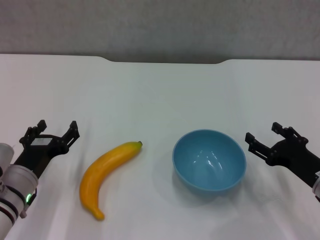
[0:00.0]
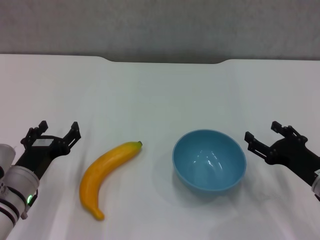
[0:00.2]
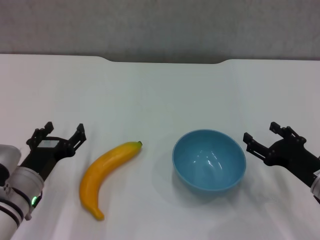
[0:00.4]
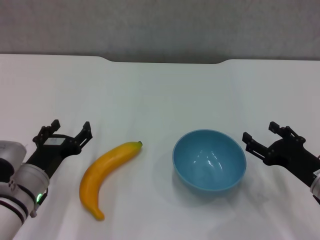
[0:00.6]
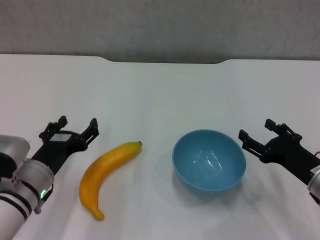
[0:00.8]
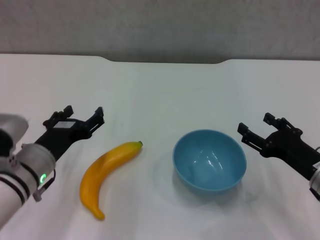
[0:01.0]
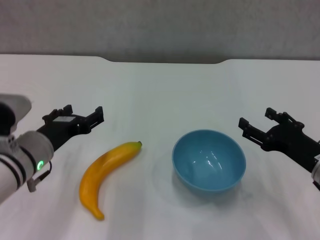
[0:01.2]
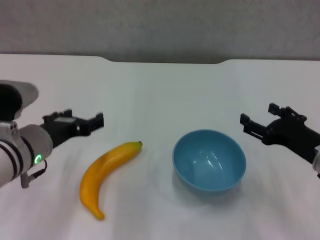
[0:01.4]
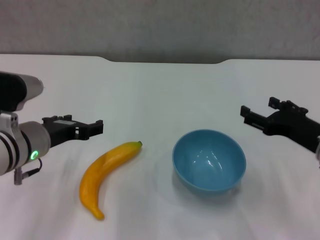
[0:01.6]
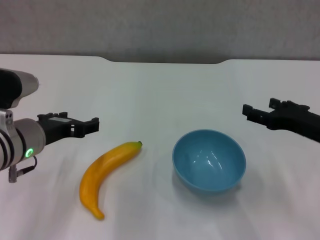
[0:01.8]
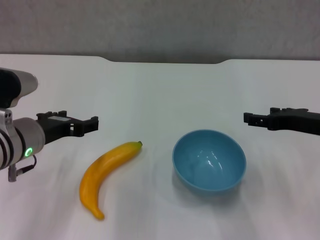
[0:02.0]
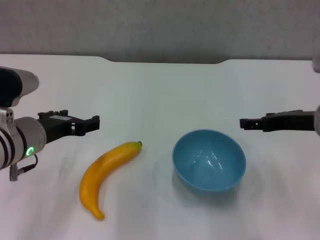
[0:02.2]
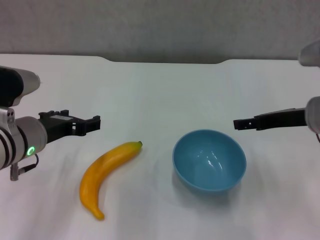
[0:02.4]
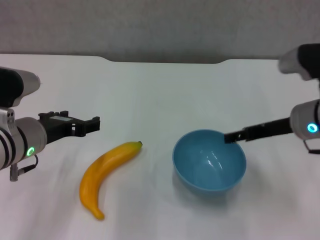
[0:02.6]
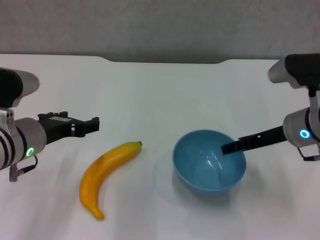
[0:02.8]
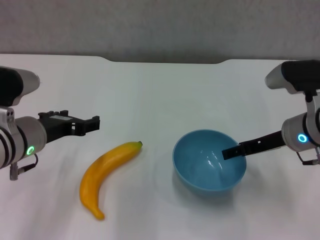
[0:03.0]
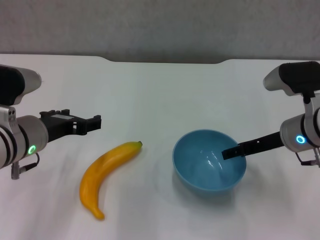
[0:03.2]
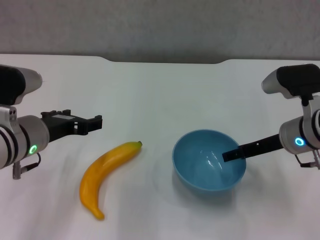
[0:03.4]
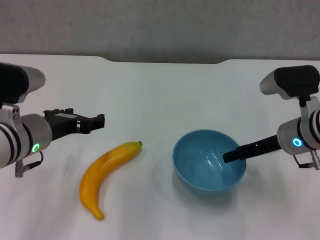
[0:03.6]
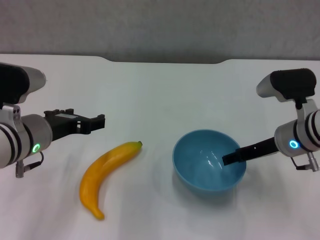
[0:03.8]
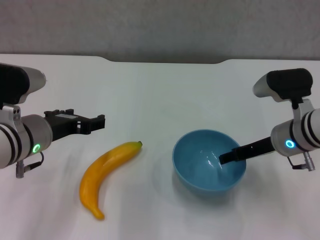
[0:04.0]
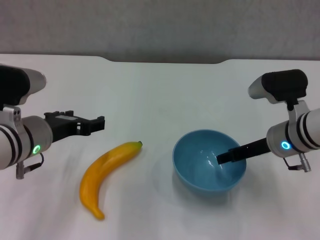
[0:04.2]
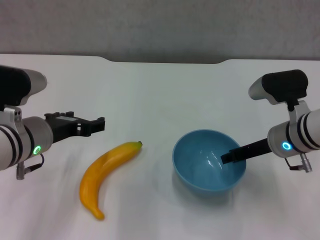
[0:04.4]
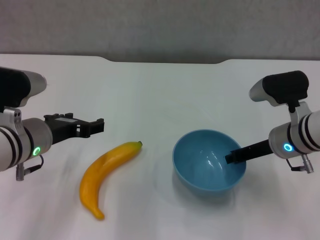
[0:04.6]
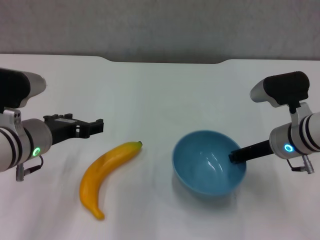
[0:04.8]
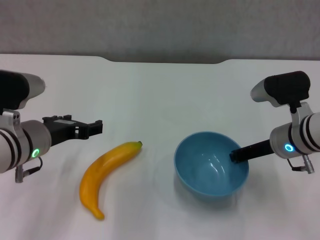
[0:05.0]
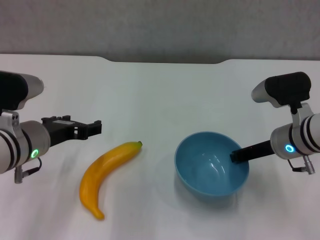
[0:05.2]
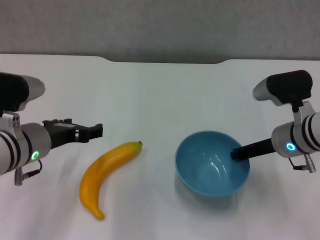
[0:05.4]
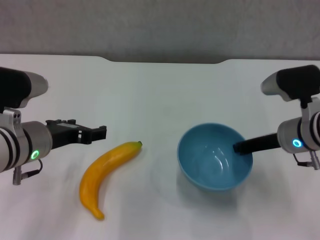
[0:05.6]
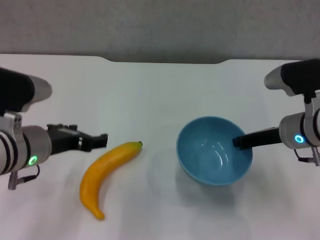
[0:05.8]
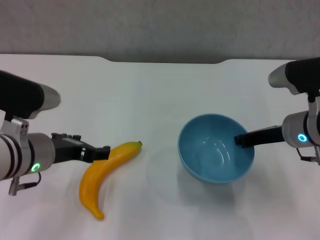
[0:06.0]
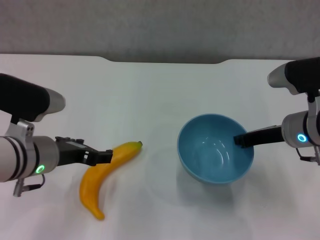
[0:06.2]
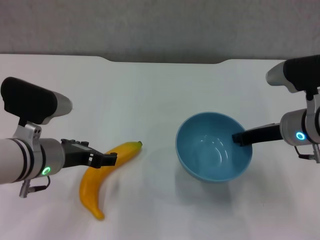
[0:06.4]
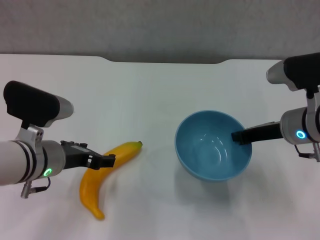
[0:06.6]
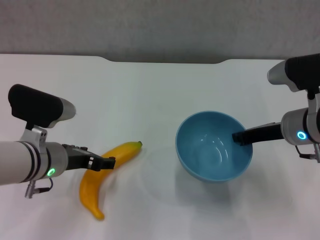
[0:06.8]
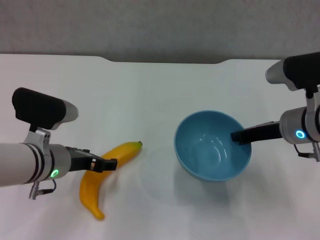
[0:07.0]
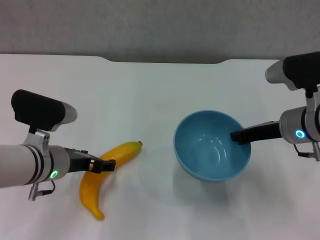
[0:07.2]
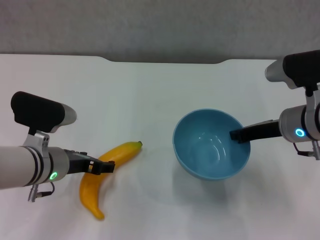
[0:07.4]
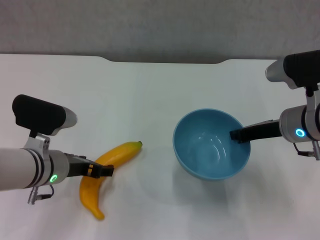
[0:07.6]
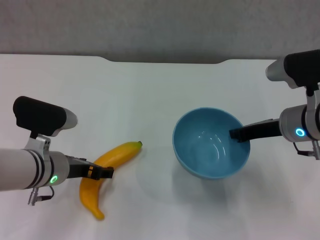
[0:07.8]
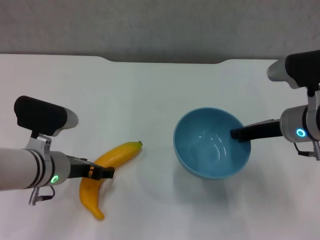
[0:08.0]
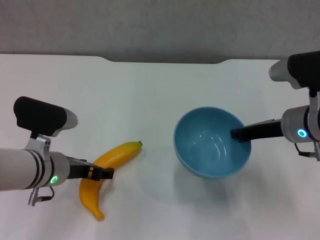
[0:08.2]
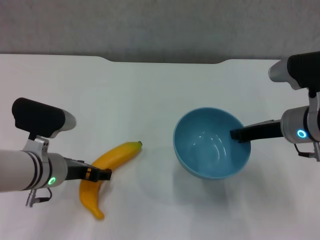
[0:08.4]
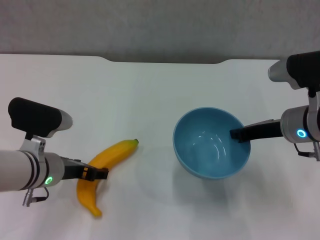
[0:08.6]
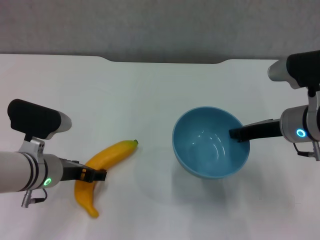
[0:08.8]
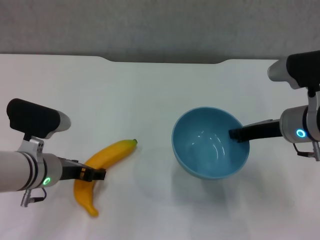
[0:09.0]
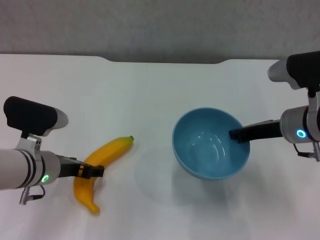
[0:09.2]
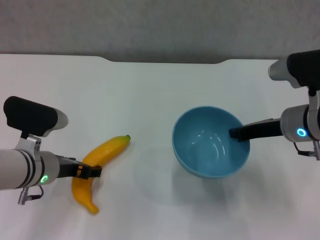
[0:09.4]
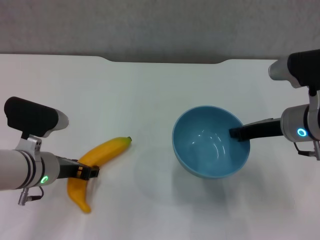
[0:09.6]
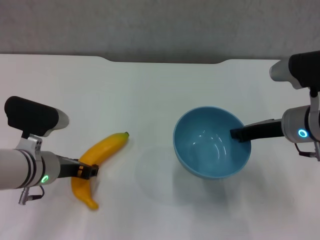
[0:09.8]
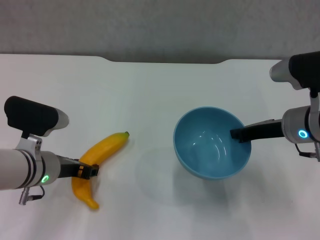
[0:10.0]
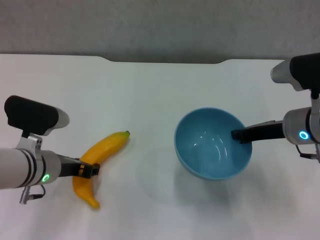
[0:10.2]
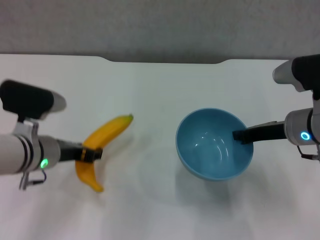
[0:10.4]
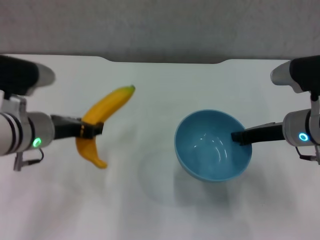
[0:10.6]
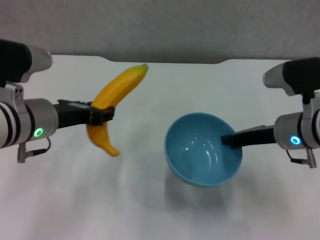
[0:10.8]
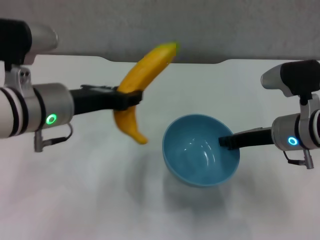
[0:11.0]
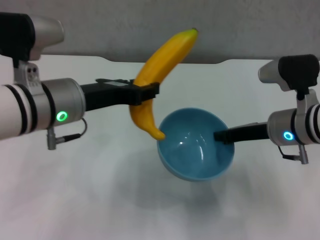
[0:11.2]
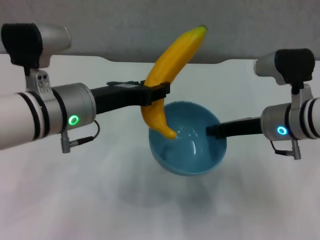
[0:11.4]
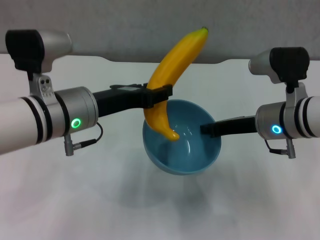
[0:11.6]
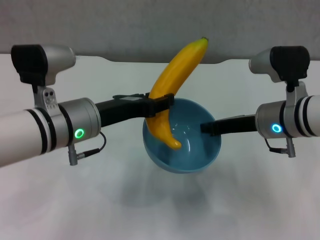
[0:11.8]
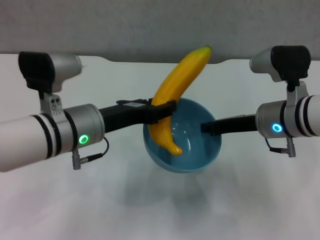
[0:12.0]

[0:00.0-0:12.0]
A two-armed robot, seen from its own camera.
Step, 0:00.0 to 0:05.0: Grasp the blue bowl with right gripper.
Step, 0:05.2 to 0:06.2: Lift the blue bowl with right gripper.
Step, 0:06.4 to 0:08.8: Grasp the banana with left gripper.
0:00.0 to 0:01.6: The grippers both shift upward by approximately 10 cm.
0:01.6 to 0:03.0: The right gripper goes about 10 cm forward.
0:03.0 to 0:04.4: The right gripper closes.
0:04.4 to 0:06.0: The right gripper closes up.
0:06.0 to 0:07.6: The left gripper travels downward by about 5 cm.
0:07.6 to 0:09.0: Both grippers stay about where they are.
0:09.0 to 0:10.4: The left gripper closes its fingers.
0:10.4 to 0:12.0: The left gripper travels to the right by roughly 5 cm.

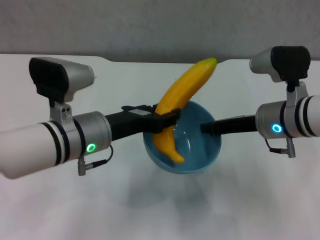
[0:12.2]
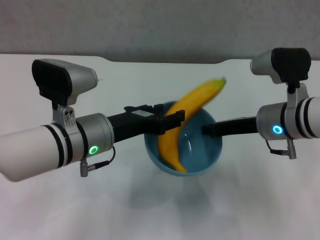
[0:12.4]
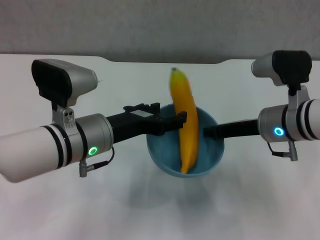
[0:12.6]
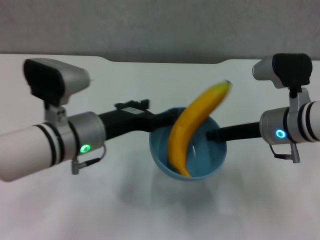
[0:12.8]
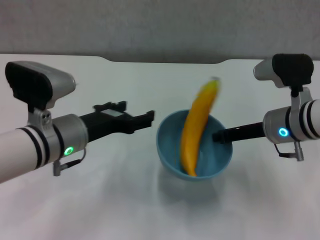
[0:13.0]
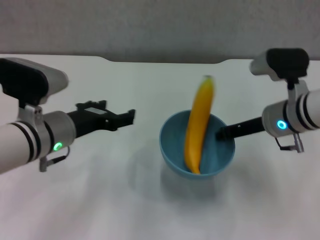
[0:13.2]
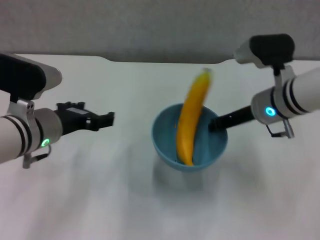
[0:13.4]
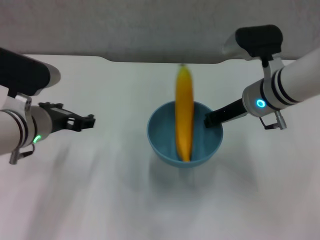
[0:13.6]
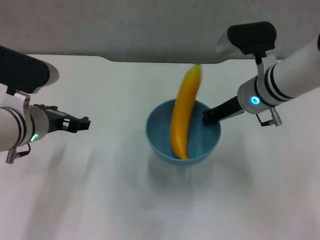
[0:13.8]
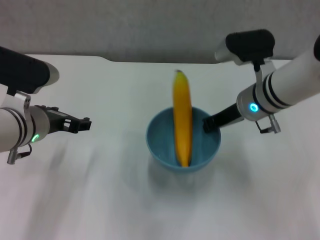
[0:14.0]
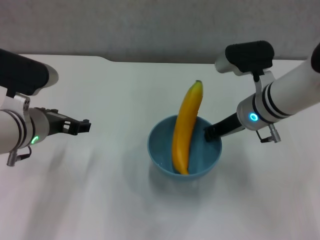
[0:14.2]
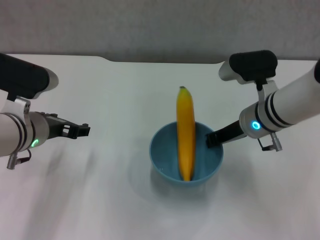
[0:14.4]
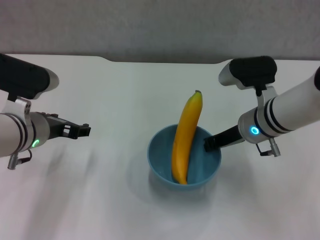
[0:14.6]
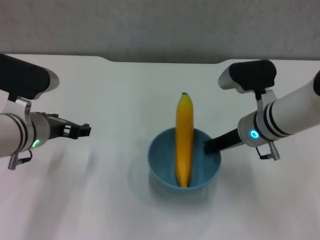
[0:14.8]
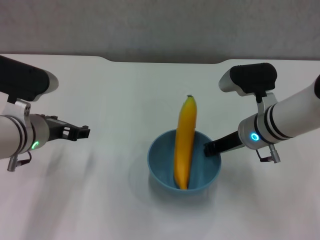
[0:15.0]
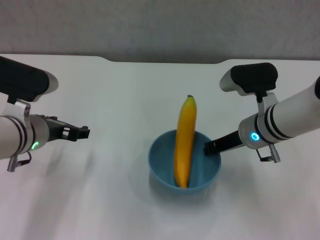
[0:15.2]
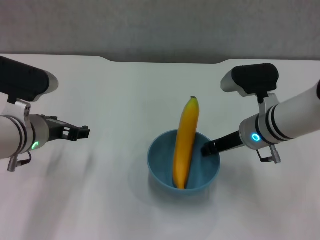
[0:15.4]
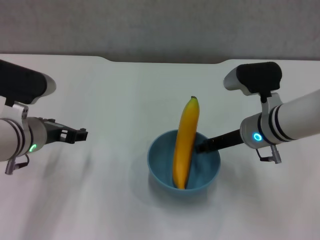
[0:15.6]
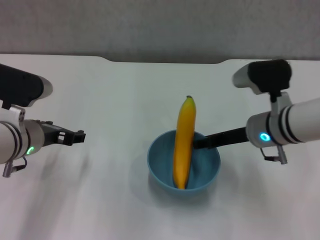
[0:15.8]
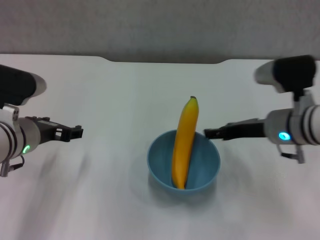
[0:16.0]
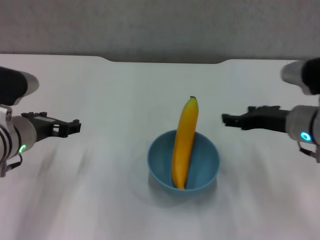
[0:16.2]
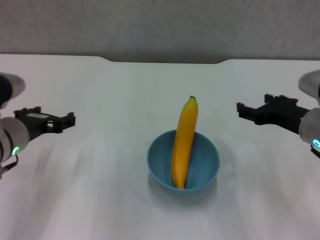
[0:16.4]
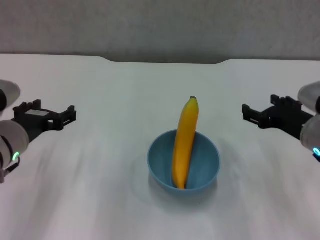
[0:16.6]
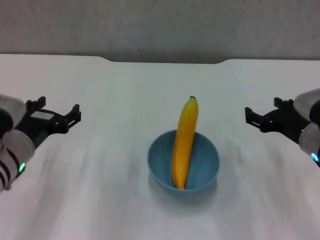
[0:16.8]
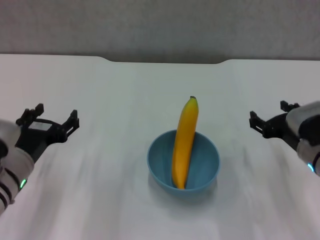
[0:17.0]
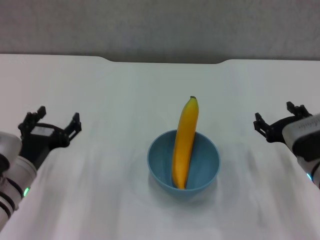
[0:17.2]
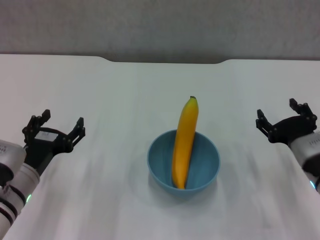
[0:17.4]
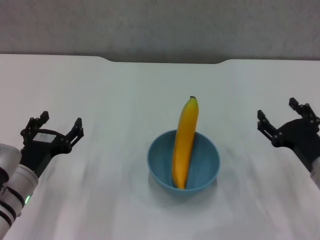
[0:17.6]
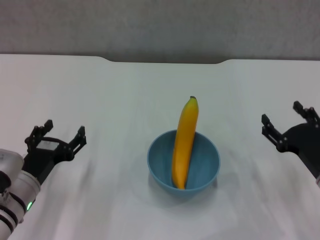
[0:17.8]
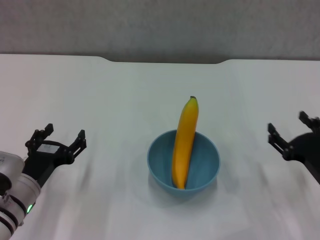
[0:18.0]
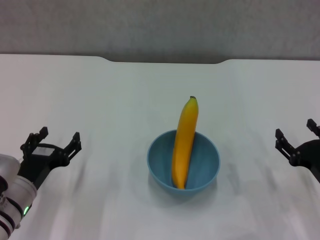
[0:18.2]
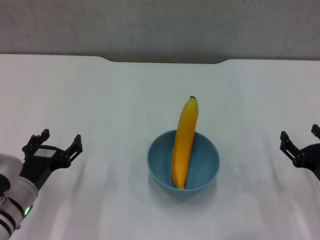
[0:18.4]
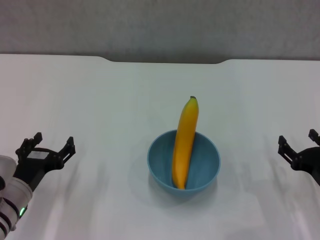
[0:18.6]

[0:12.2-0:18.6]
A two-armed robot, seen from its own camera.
Step, 0:12.8 to 0:15.8: Place the bowl on the table with right gripper.
0:12.2 to 0:13.8: The left gripper travels to the left by some 5 cm, and opens up; the right gripper heads forward, covering some 5 cm.
0:13.8 to 0:15.4: The right gripper is displaced downward by roughly 5 cm.
0:15.4 to 0:17.0: The left gripper shifts roughly 10 cm backward and downward, while the right gripper is displaced backward and to the right by some 10 cm, and opens up.
0:17.0 to 0:18.6: The right gripper moves downward, backward and to the right, about 10 cm; the left gripper is displaced downward by about 5 cm.

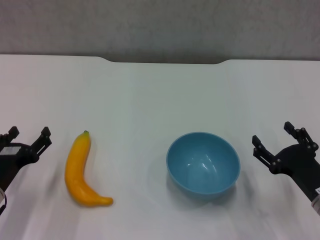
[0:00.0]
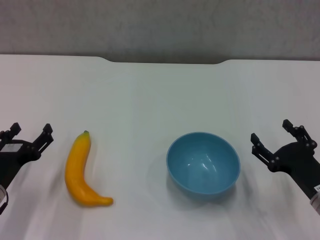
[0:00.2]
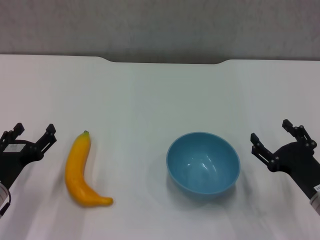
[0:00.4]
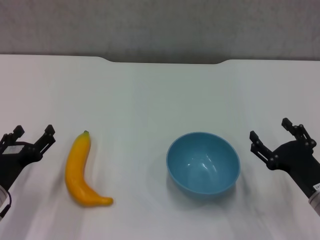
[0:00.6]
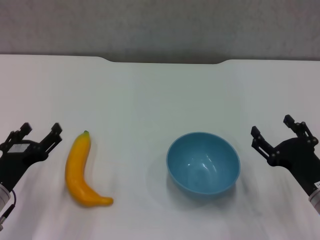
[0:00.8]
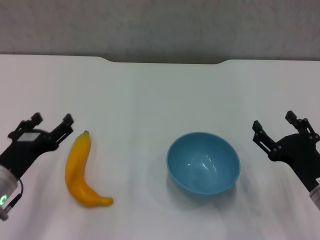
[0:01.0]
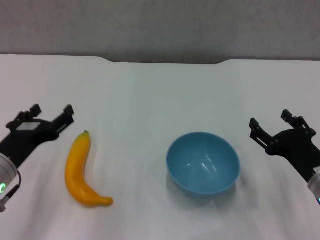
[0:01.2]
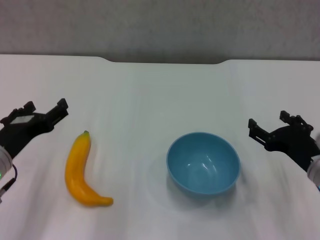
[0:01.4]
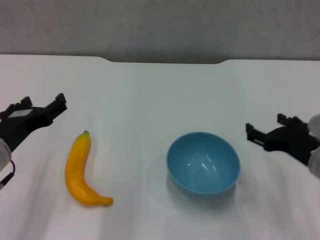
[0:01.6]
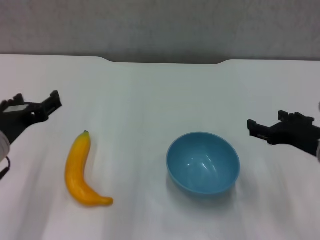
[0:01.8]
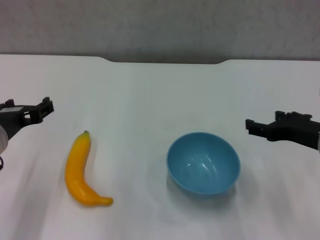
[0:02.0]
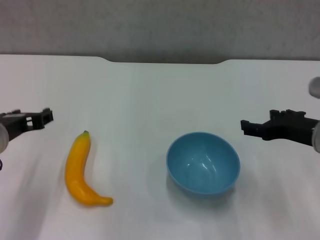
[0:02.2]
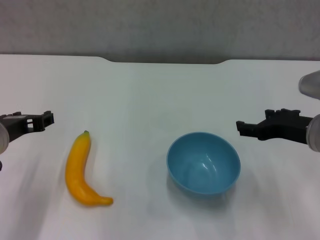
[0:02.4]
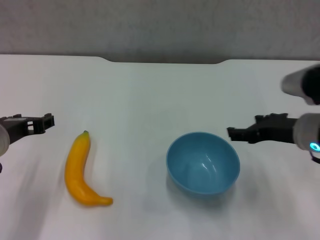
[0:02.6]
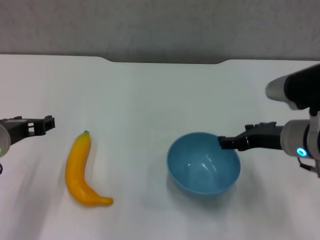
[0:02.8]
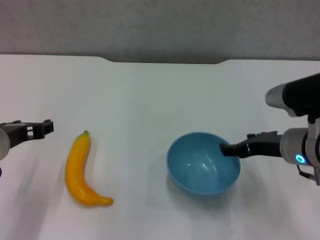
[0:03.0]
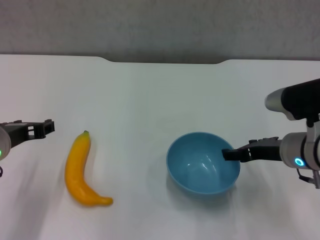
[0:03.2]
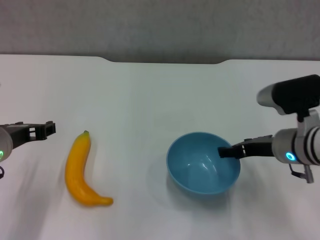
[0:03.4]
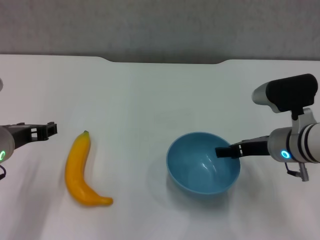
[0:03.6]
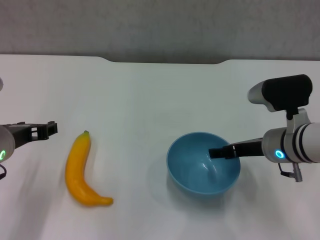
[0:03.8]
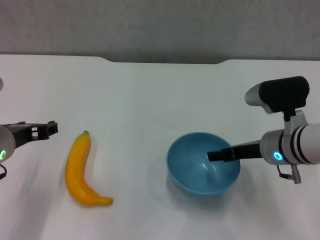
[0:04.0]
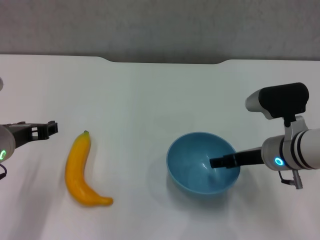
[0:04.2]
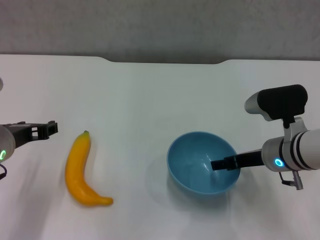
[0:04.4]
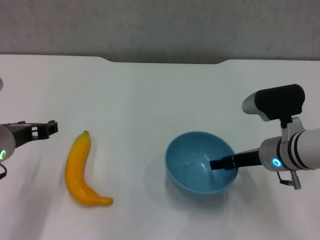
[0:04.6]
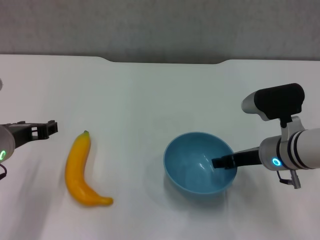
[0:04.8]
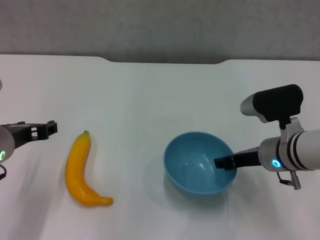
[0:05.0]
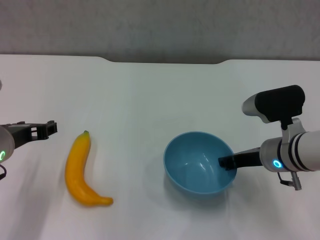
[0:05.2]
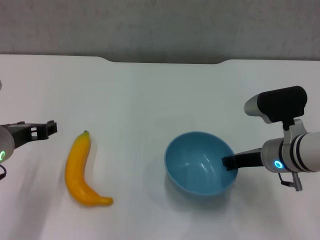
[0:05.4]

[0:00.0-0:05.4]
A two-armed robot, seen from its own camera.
0:00.0 to 0:01.4: Both grippers travel together upward, some 5 cm.
0:01.4 to 0:02.8: The left gripper changes place by approximately 5 cm, and closes up, while the right gripper goes about 5 cm forward.
0:02.8 to 0:04.0: The grippers make only small movements.
0:04.0 to 0:05.4: The right gripper closes its fingers.
